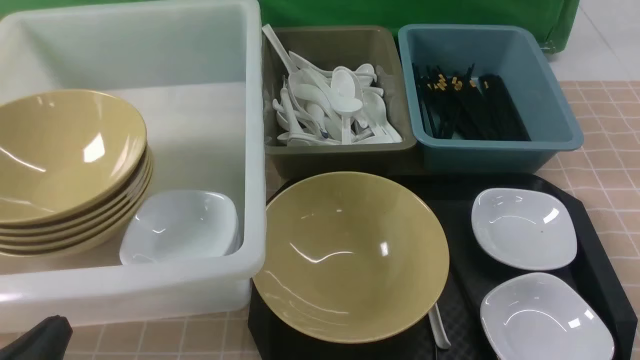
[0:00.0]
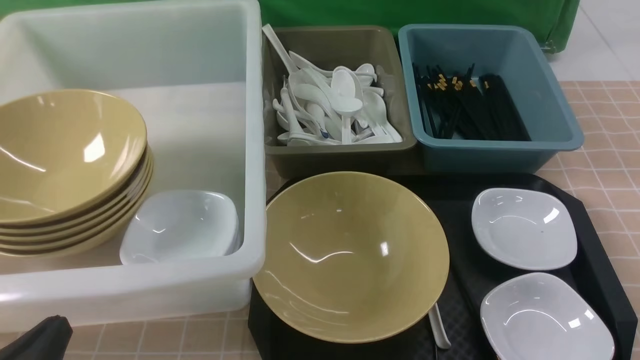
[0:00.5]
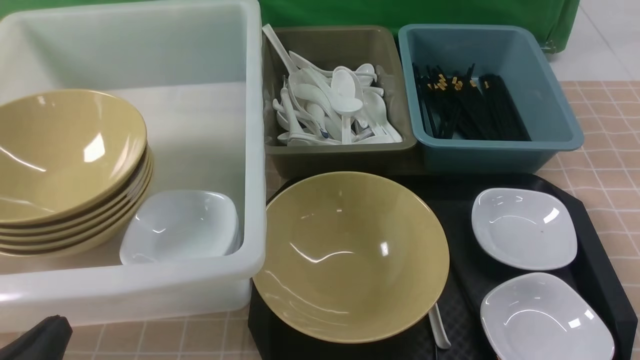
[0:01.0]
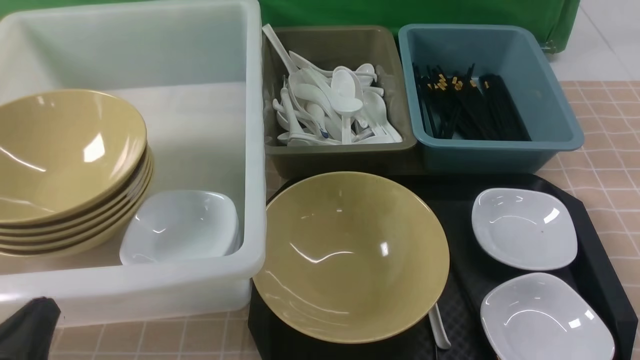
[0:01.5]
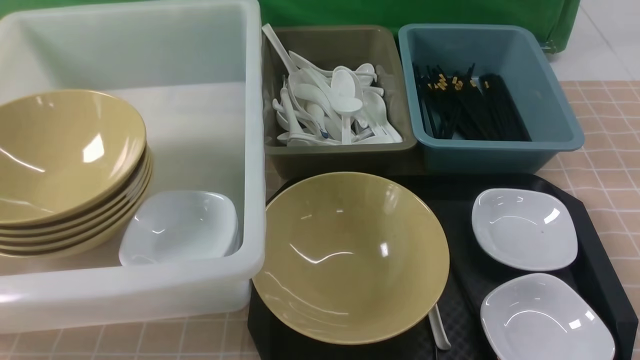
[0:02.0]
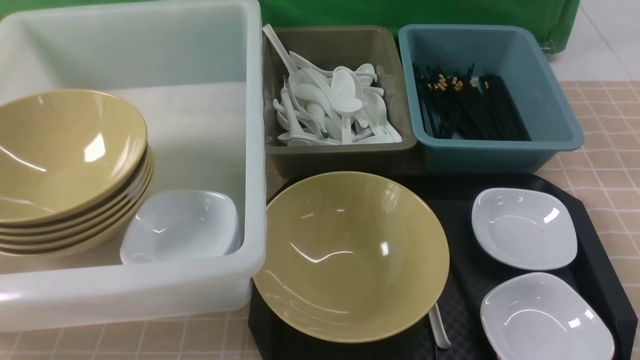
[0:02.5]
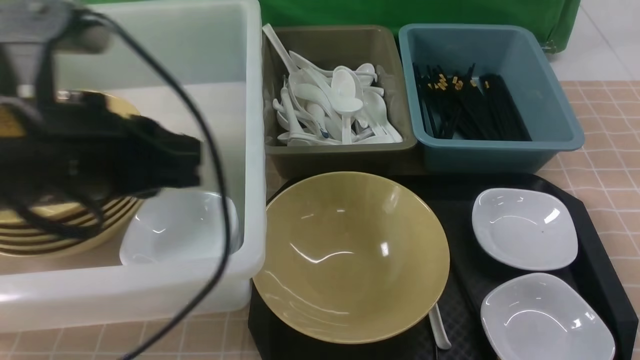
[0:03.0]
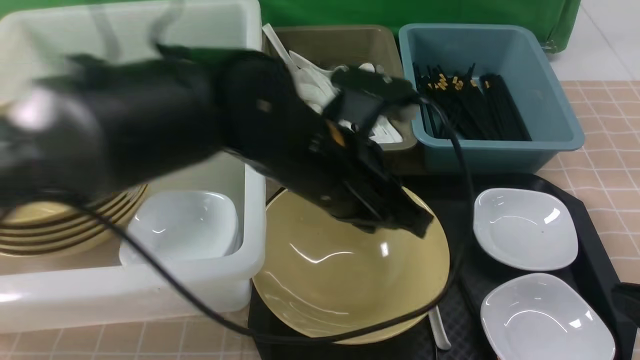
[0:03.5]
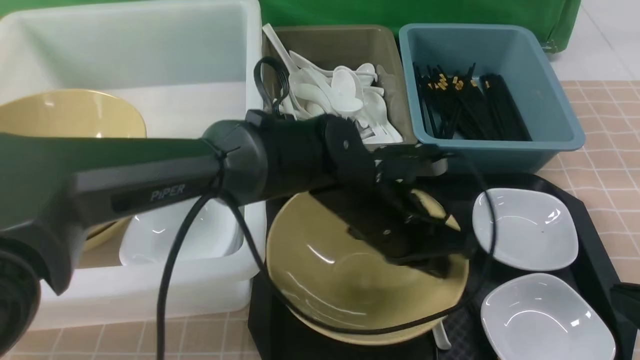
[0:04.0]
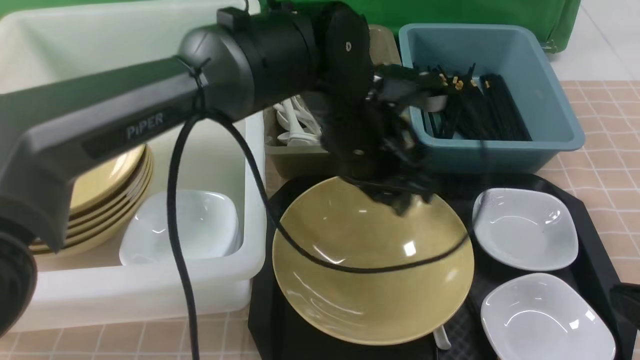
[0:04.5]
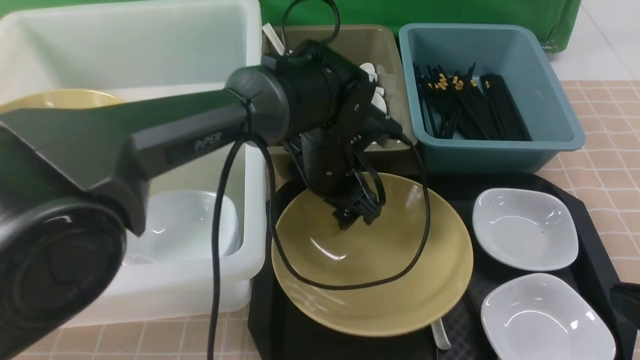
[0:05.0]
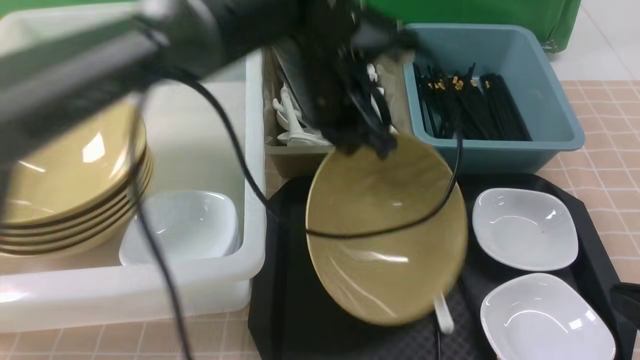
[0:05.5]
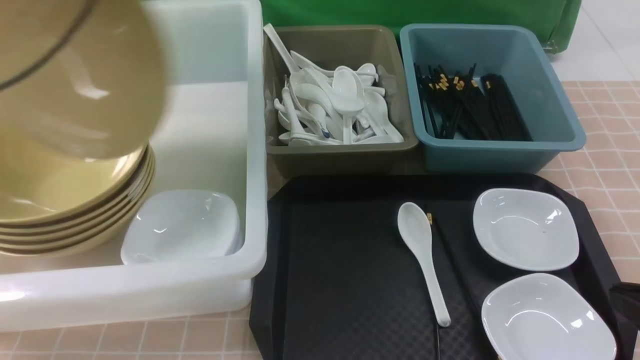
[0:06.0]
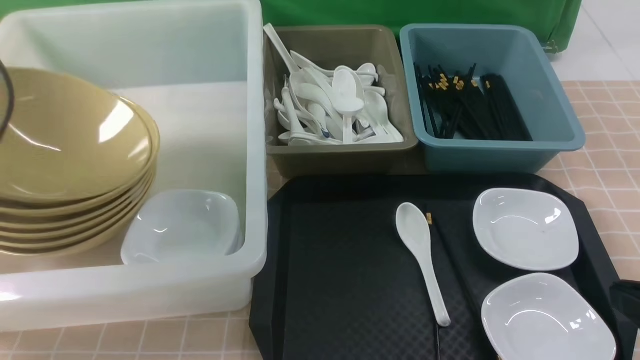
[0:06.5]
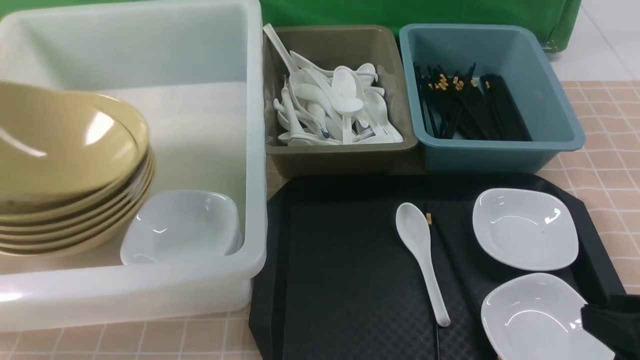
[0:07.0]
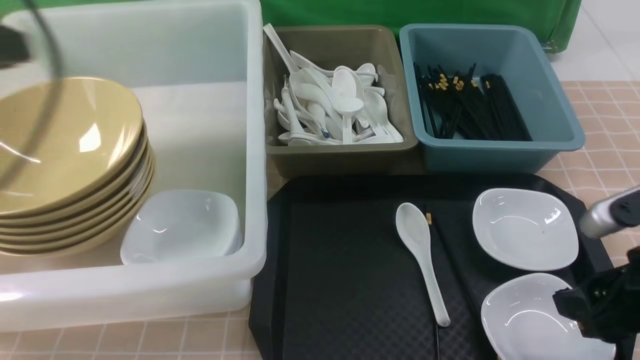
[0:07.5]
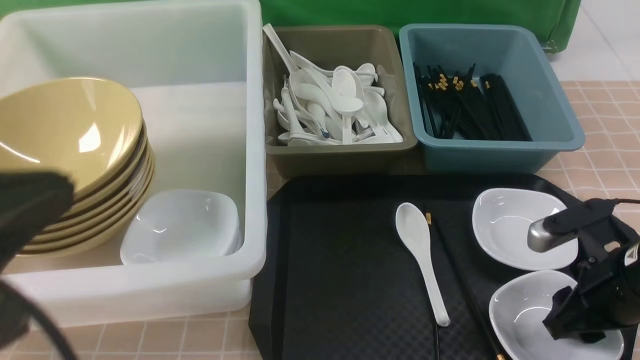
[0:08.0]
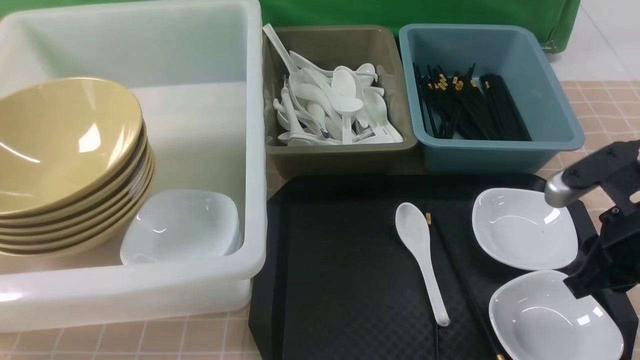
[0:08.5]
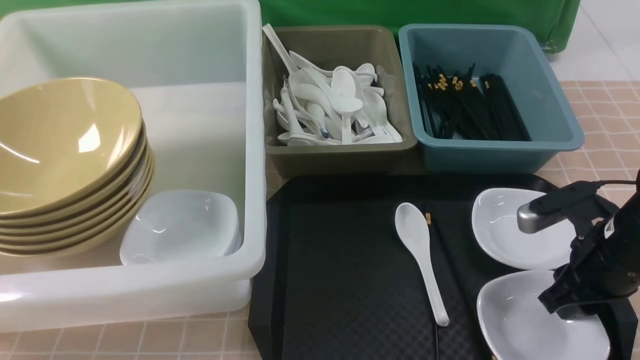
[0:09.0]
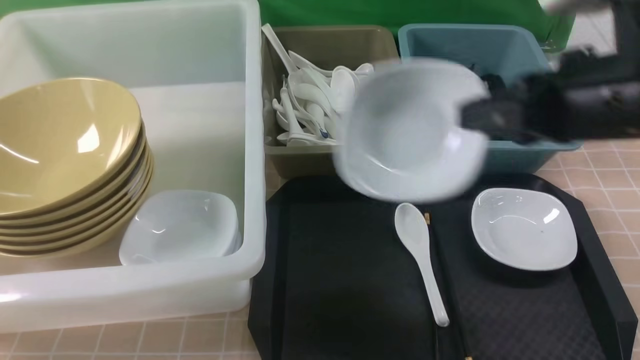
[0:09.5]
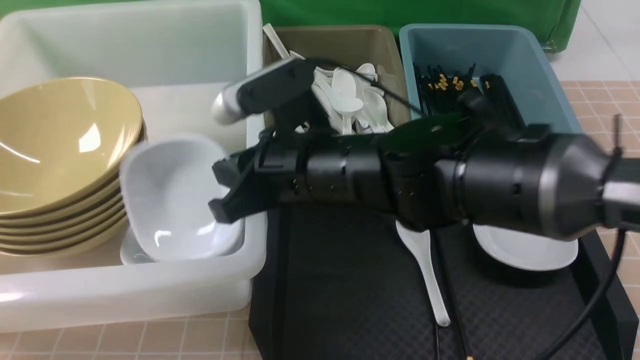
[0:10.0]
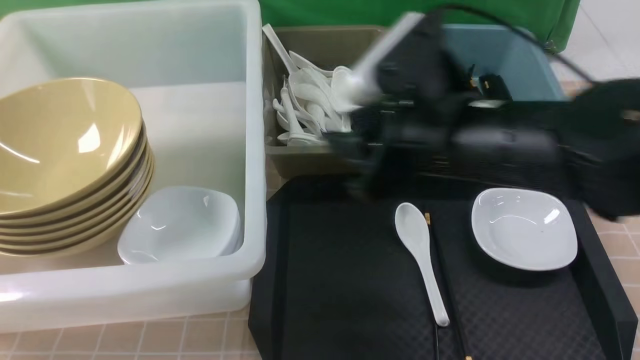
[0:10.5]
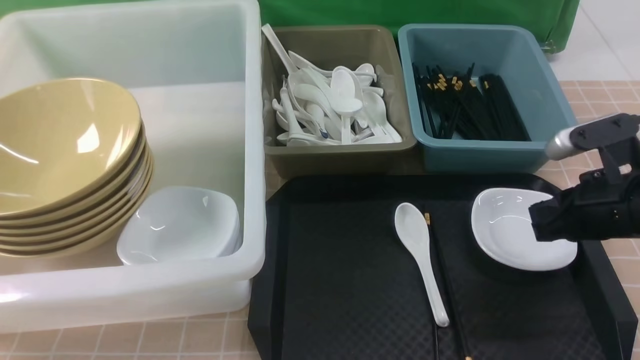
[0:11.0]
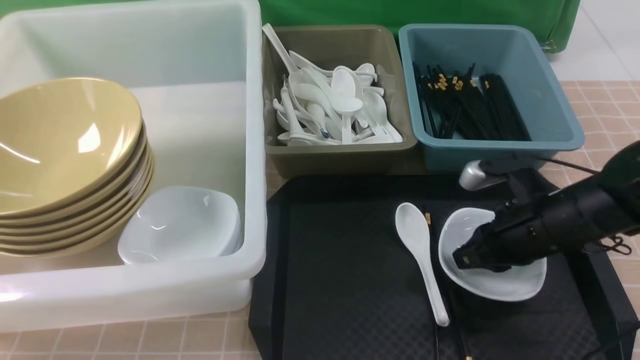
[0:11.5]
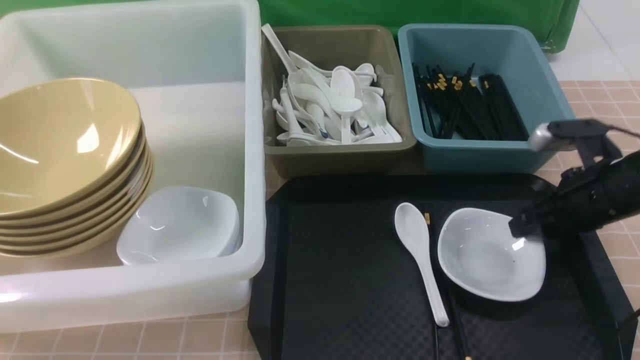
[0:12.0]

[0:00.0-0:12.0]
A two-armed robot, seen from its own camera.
Task of the whole recording: on brown table put chopsticks spoon bowls plates into blue grey white boxes.
Step, 0:00.0 to 0:05.0: use the left arm to grab the yellow noodle bowl on the left.
Step, 0:05.5 to 0:06.5: use the left arm to put the noodle bowl into the large storage box on the left.
Step, 0:07.0 to 0:09.0: use the right arm to grab the plate.
Step, 0:09.5 to 0:10.0: use the right arm to put the plate into the large storage box on the left.
0:00.0 to 0:02.0: The left gripper is displaced upward by some 10 cm.
0:02.0 to 0:04.0: The right gripper is displaced forward by approximately 5 cm, reaches approximately 10 cm upward, then returns, and closes its fingers. The left gripper shifts some 40 cm to the right and forward.
0:04.0 to 0:06.0: The left gripper travels to the left and upward by about 40 cm, and opens, then closes once more.
0:06.0 to 0:08.0: The right gripper moves forward and downward, roughly 15 cm, and opens its fingers. The left gripper heads backward, covering about 20 cm, and opens, then closes once more.
0:08.0 to 0:10.0: The right gripper travels to the left by some 25 cm. The left gripper travels downward and backward by some 10 cm.
0:10.0 to 0:12.0: The right gripper travels to the right by about 30 cm, and opens its fingers.

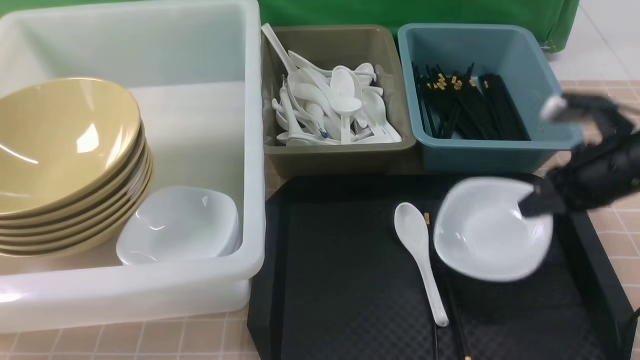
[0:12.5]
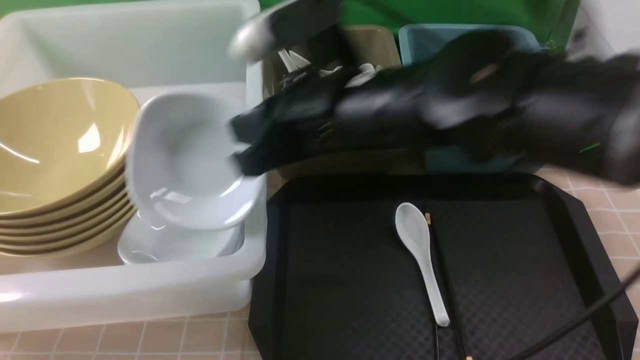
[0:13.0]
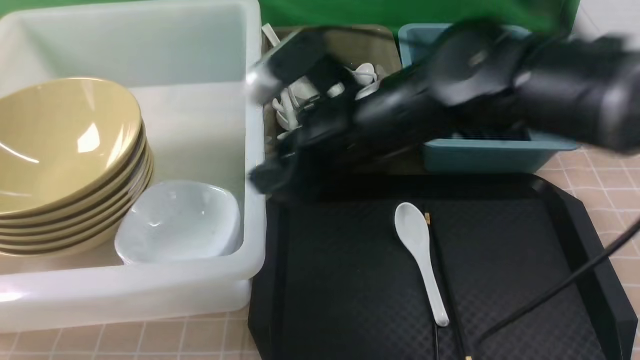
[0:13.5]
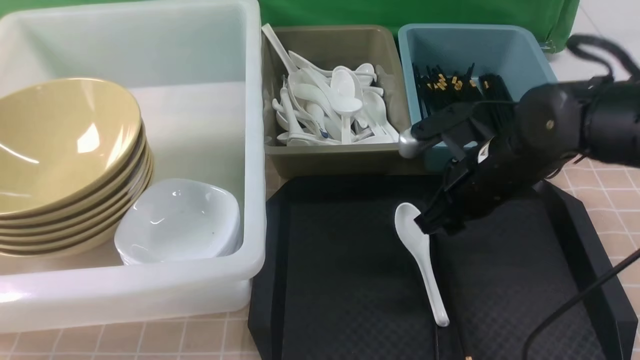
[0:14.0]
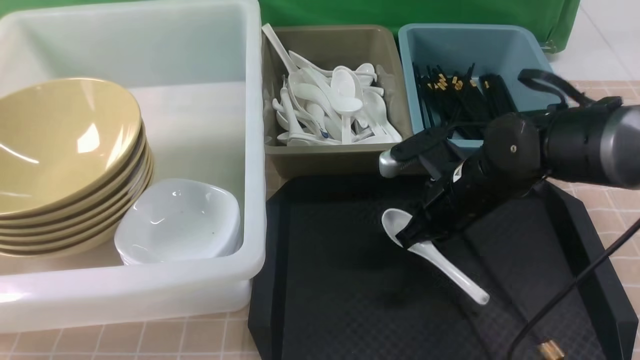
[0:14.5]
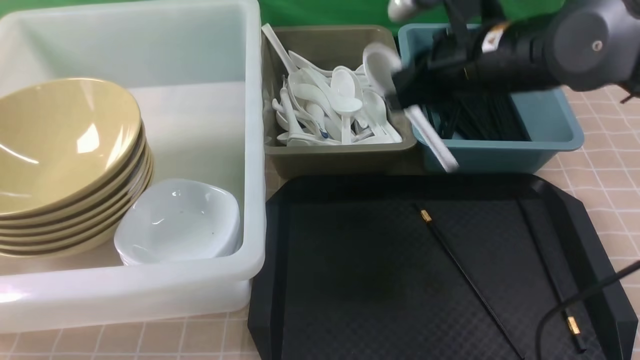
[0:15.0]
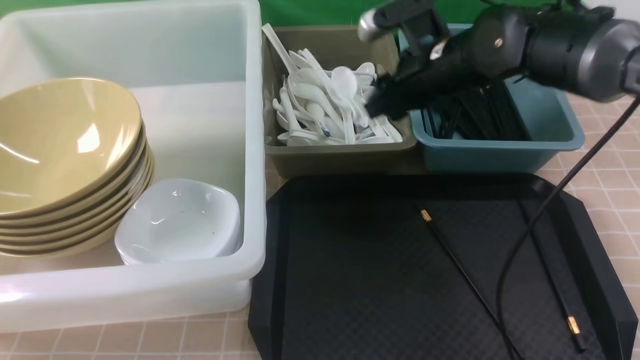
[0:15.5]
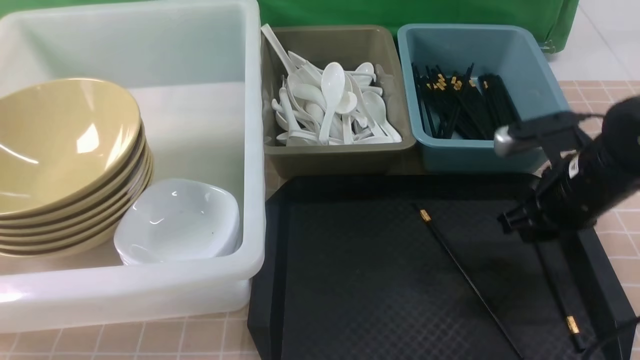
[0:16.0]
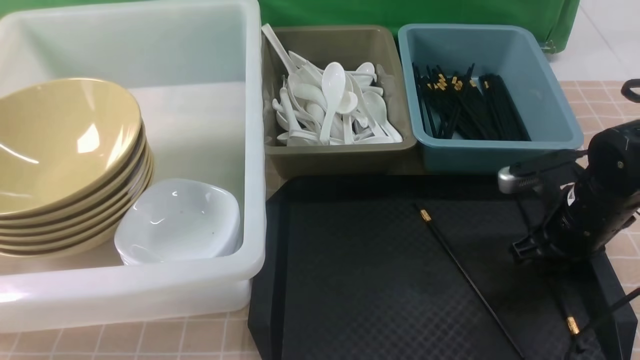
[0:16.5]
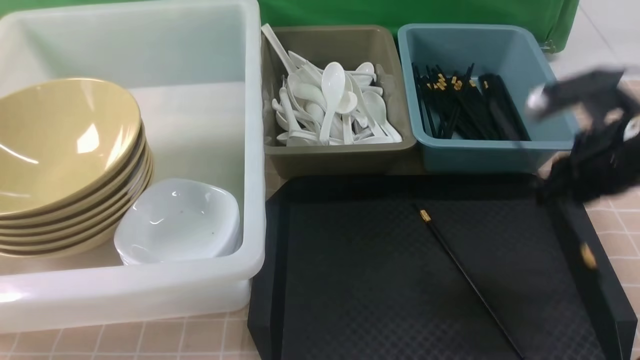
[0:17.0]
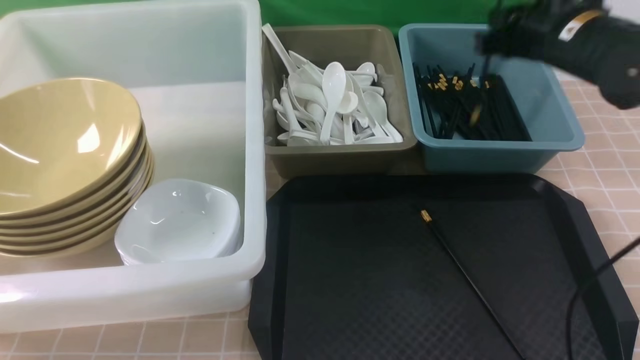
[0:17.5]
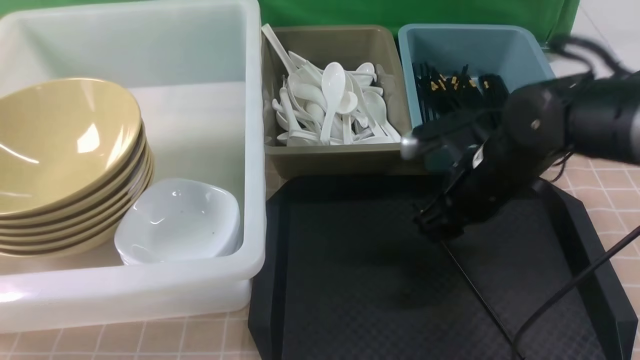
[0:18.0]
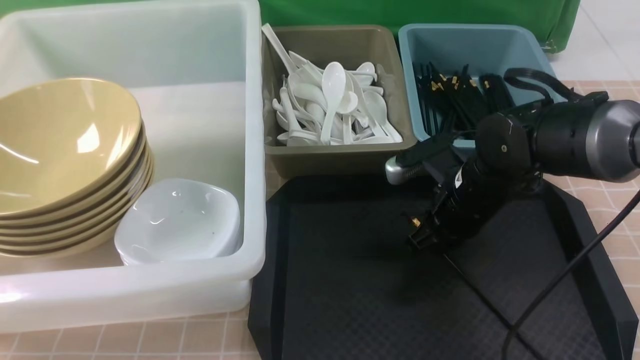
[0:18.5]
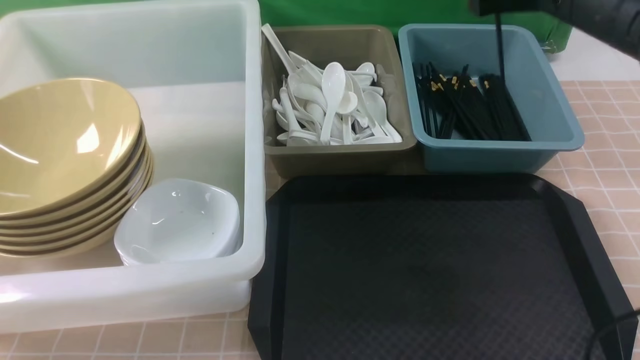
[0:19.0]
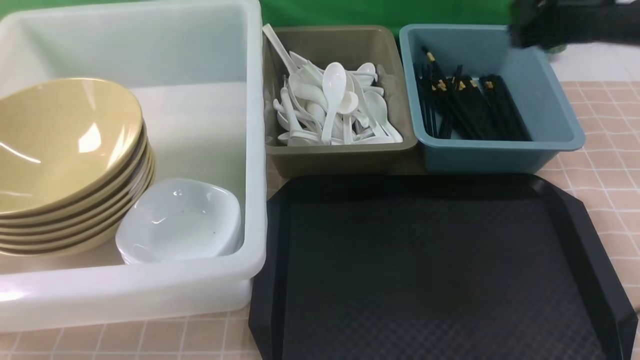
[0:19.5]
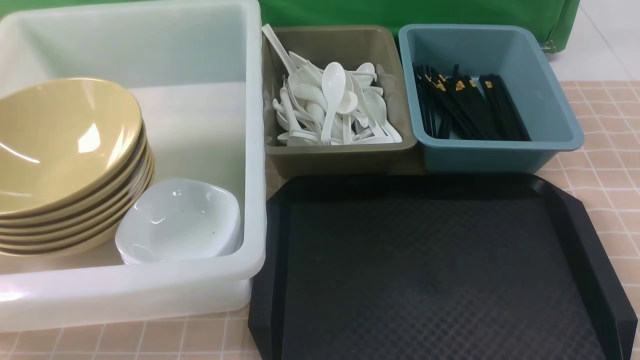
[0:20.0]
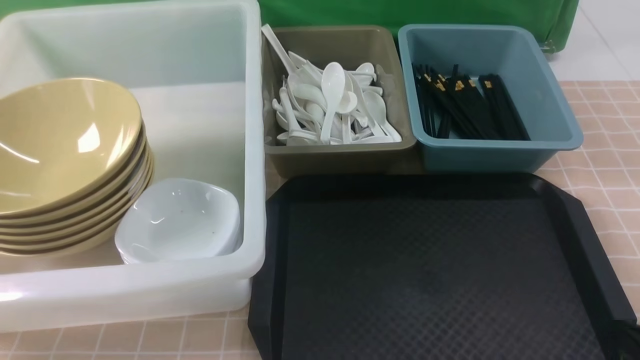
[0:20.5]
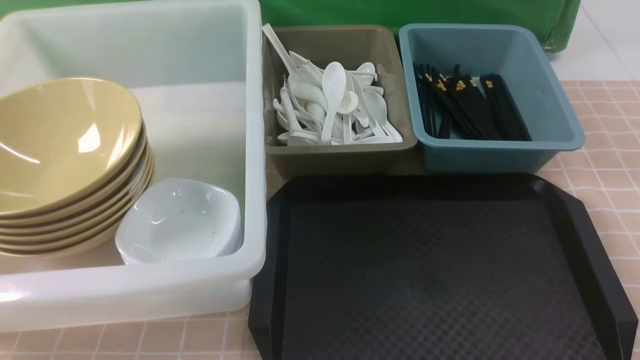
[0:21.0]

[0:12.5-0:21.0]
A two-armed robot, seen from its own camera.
Task of the whole recording: on brown table put chopsticks spoon bowls plates into blue grey white boxes.
Step, 0:12.5 to 0:13.0: use the right arm to put the plate into the large storage box on the left.
Step, 0:13.5 to 0:14.5: use the right arm to grab the soup spoon in the middle.
Step, 0:15.0 to 0:15.5: use the right arm to put the soup spoon into the small storage box in the middle.
Step, 0:16.0 to 0:16.5: use the right arm to grab a chopstick.
Step, 0:17.0 to 0:17.5: use the right arm to put a chopstick into the small storage box on the right.
Step, 0:18.0 to 0:18.5: use the right arm to grab a chopstick.
Step, 0:19.0 to 0:19.5: use the right arm to put a chopstick into the small storage box on the right.
0:12.5 to 0:14.5: The right gripper travels to the left by some 10 cm, and opens and closes again.
0:14.5 to 0:16.5: The right gripper heads to the right, covering roughly 10 cm, and goes upward and returns, about 10 cm each way.
0:16.5 to 0:19.0: The right gripper moves up and down over approximately 20 cm, changing direction 2 times, and opens and closes again.
0:19.0 to 0:21.0: The right gripper travels backward and downward by approximately 35 cm.
